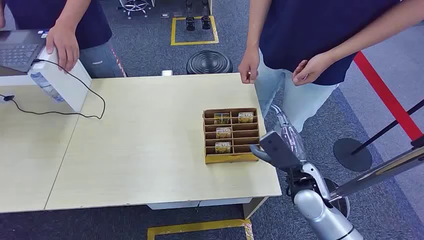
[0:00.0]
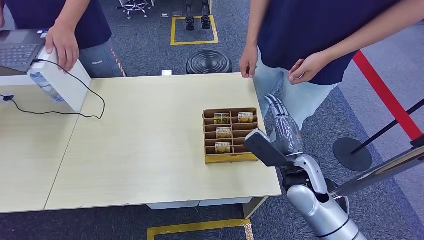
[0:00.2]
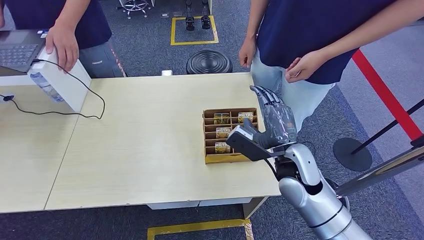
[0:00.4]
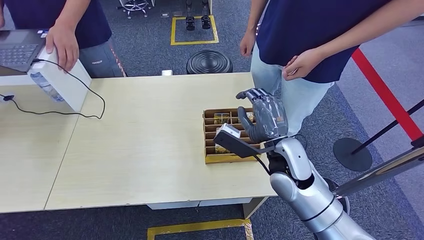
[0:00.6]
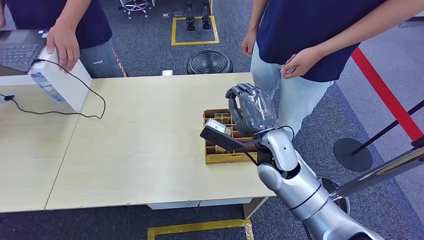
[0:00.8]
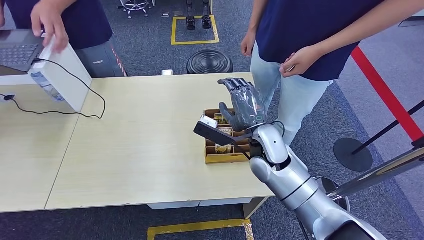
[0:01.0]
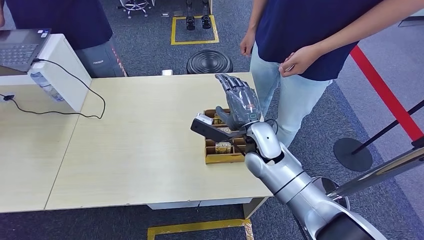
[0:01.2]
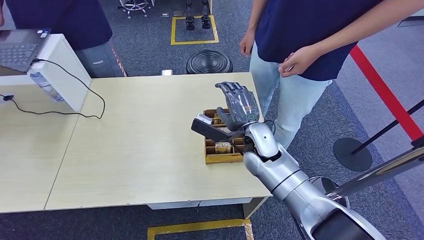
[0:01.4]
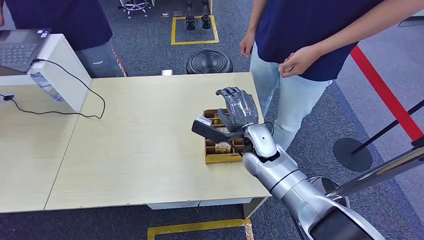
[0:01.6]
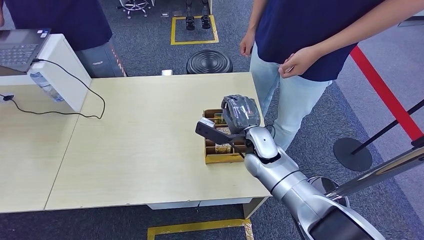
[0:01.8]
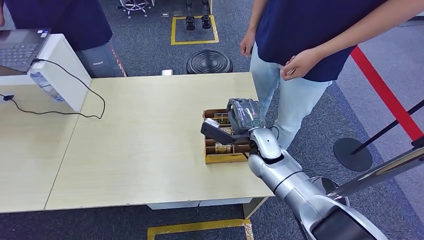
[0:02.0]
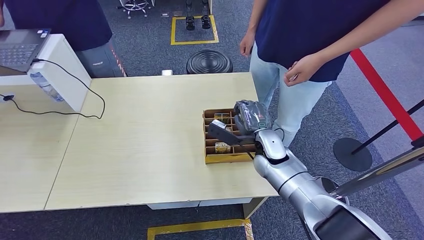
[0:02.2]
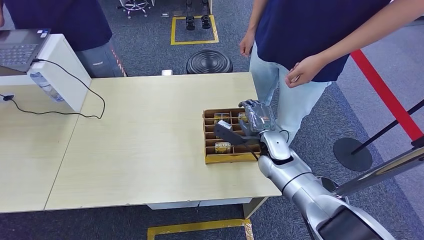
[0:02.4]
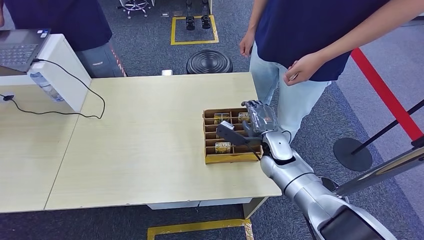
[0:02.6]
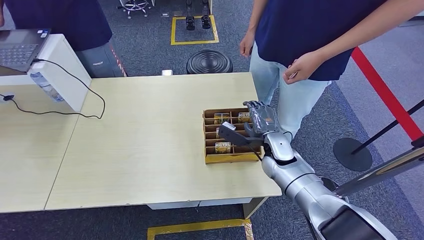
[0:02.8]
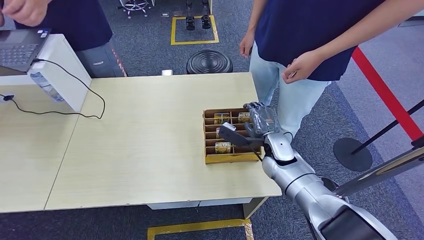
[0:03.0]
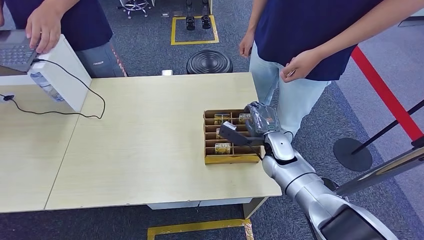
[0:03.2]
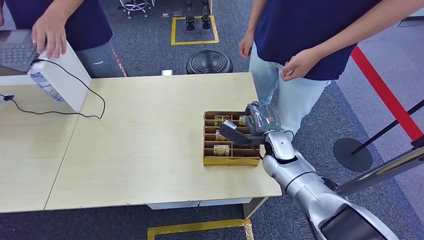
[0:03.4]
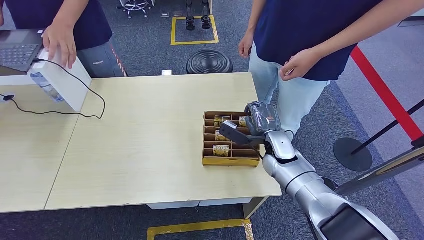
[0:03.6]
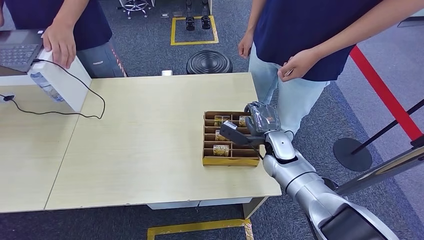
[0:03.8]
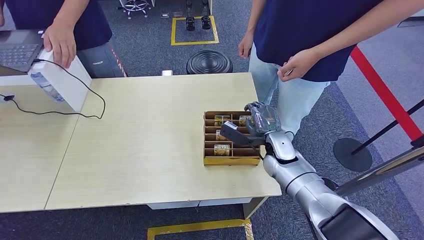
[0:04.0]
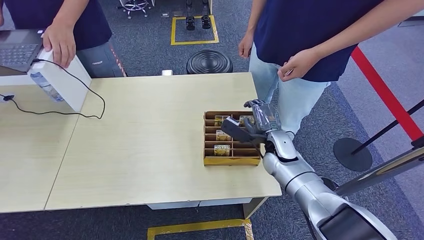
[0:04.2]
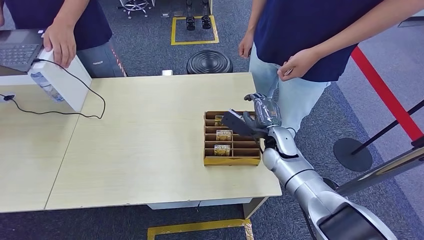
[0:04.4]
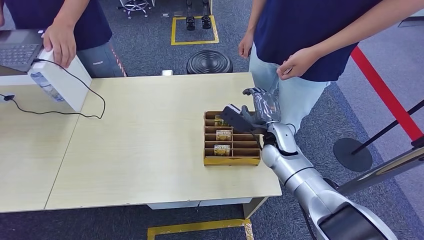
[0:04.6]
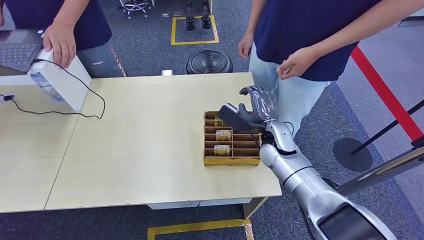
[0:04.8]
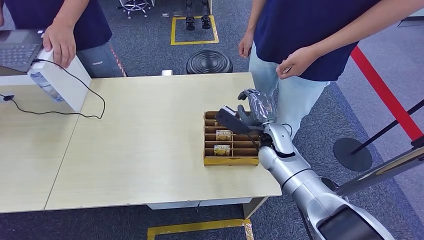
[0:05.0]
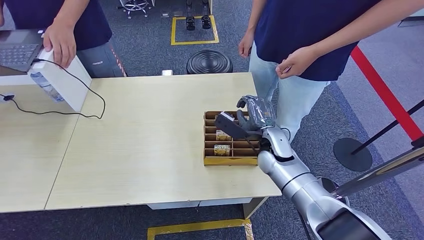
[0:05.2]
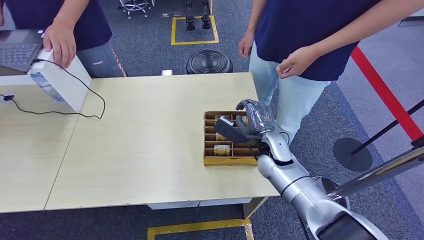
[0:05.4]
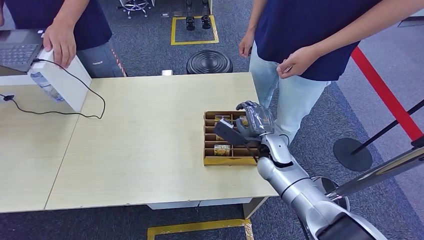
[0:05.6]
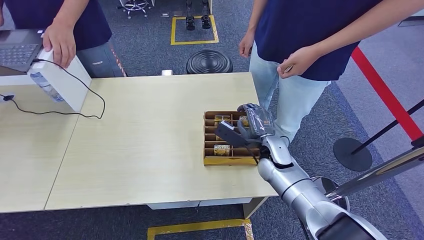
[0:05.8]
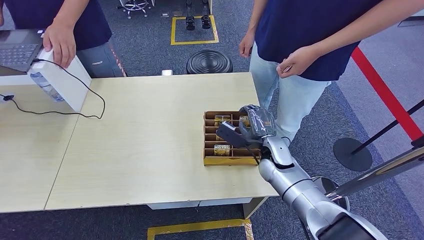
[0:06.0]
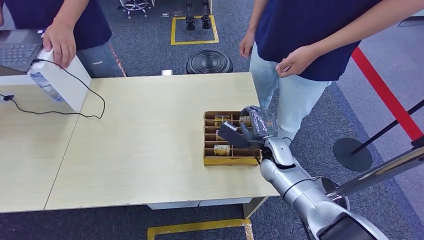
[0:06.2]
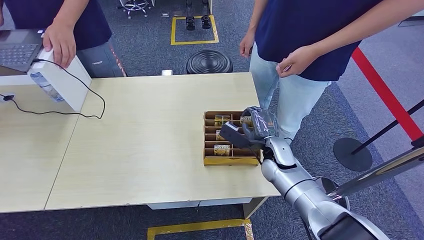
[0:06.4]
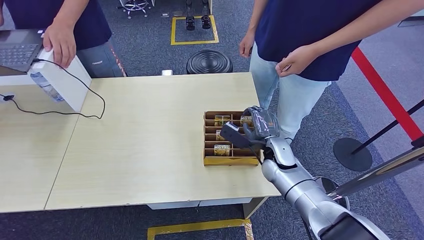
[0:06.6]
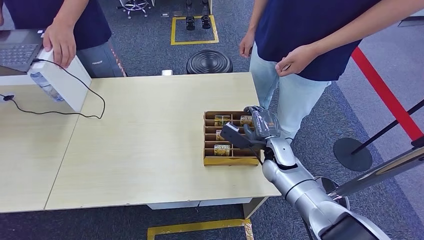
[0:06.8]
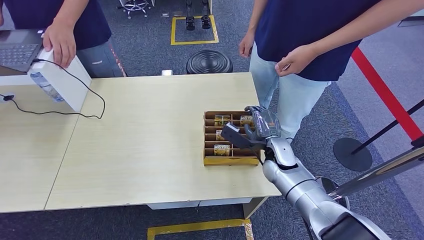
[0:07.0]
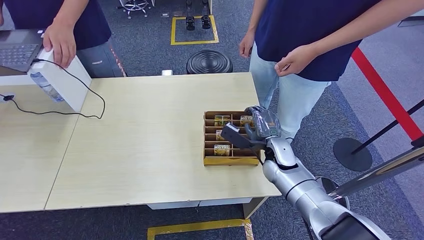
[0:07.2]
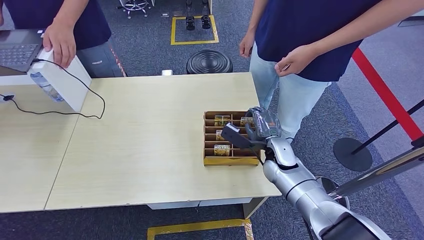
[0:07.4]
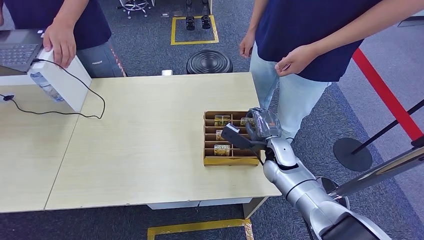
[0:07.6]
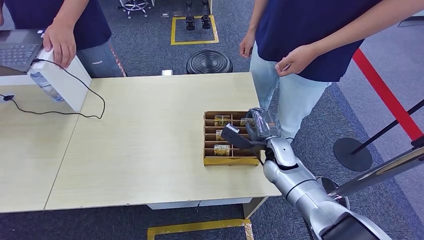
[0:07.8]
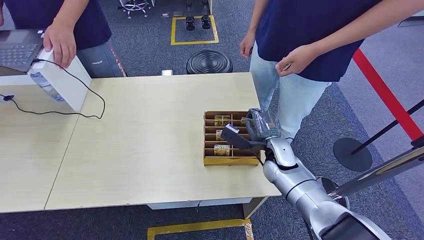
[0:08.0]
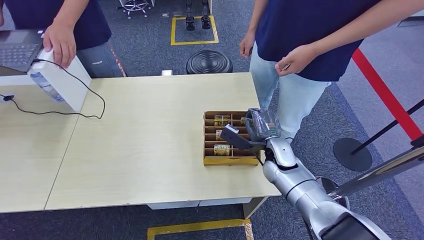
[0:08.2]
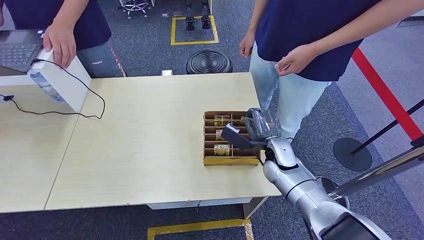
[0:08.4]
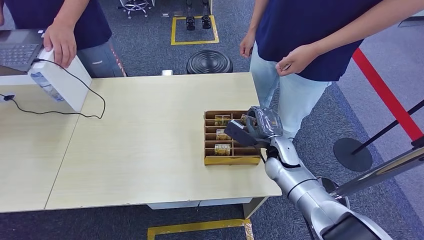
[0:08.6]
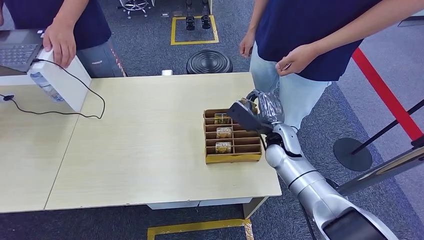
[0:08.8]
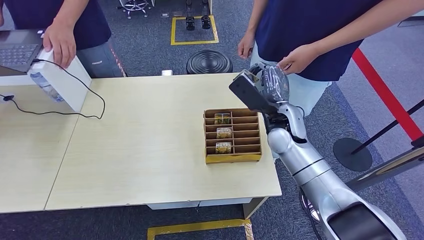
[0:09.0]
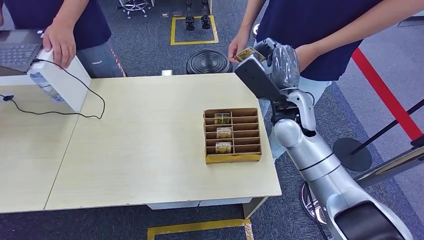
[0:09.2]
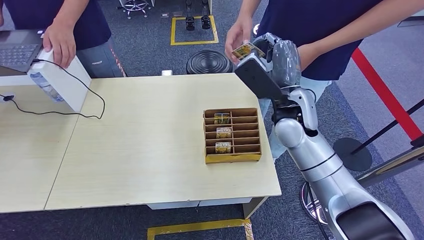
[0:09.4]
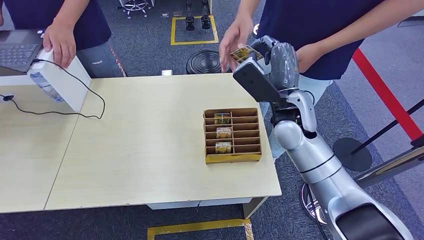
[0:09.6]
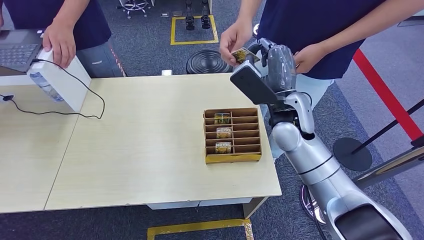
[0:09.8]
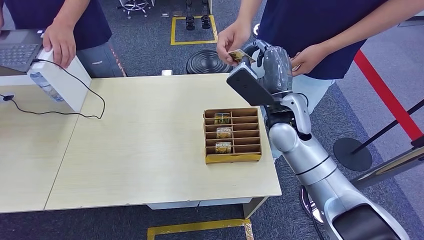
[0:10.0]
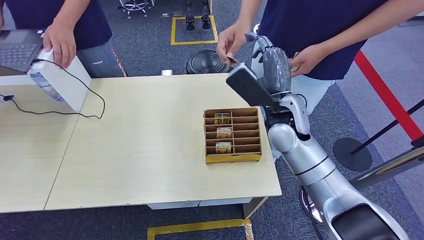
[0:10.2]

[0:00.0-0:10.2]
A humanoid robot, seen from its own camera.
Step, 0:00.0 to 0:09.0: Pick up the room card from the card holder.
Step, 0:09.2 to 0:10.2: Hand the room card to the target.
0:01.4 to 0:03.0: The right hand moves to the right and downward, roughly 10 cm.
0:03.0 to 0:07.2: The hands stay close to where they were, moving slightly.
0:07.2 to 0:08.8: The hands move only a little.
0:08.8 to 0:10.2: The right hand goes approximately 15 cm upward.
